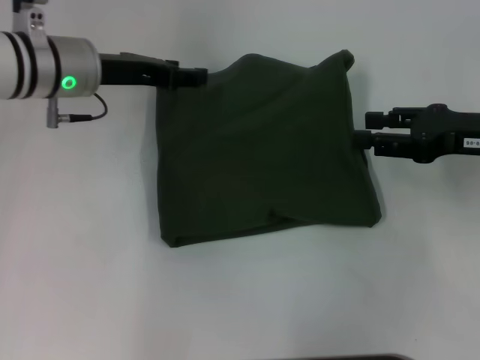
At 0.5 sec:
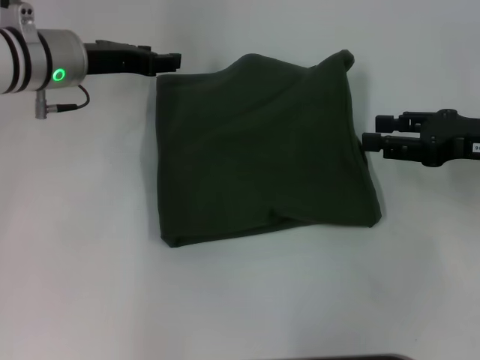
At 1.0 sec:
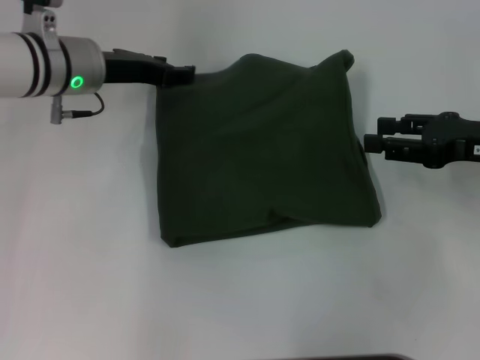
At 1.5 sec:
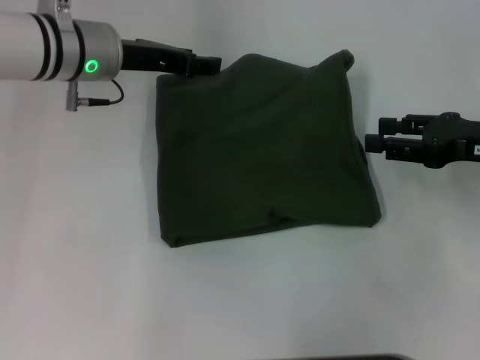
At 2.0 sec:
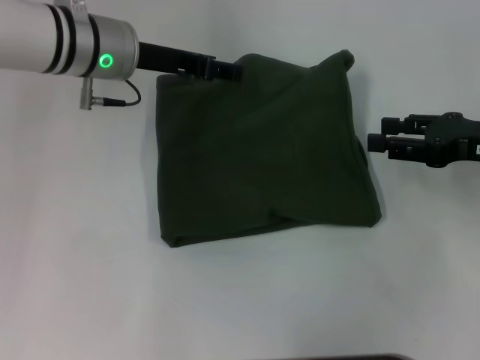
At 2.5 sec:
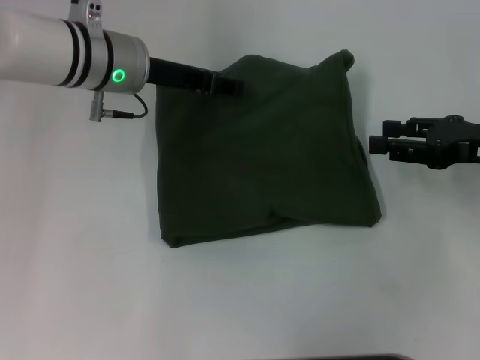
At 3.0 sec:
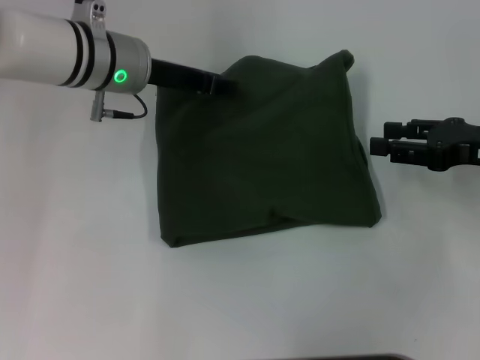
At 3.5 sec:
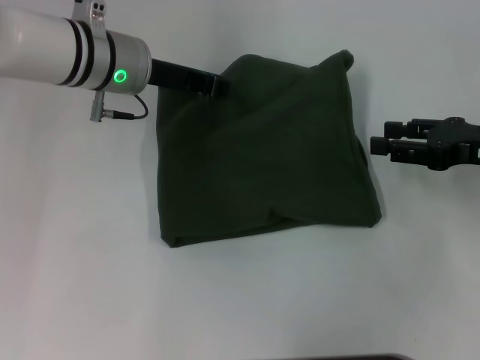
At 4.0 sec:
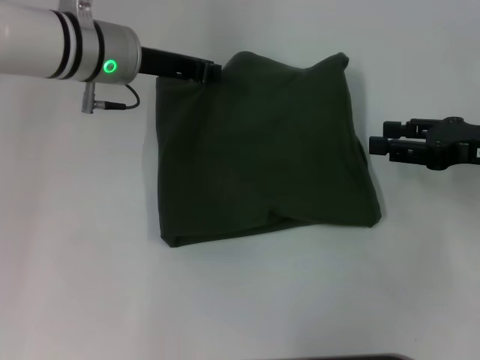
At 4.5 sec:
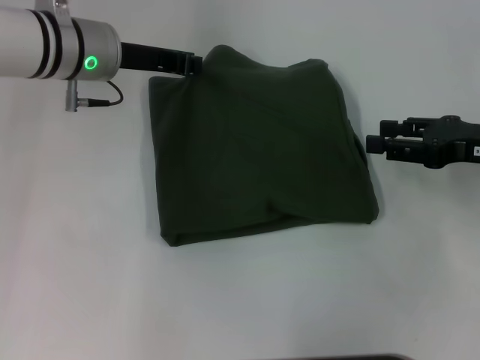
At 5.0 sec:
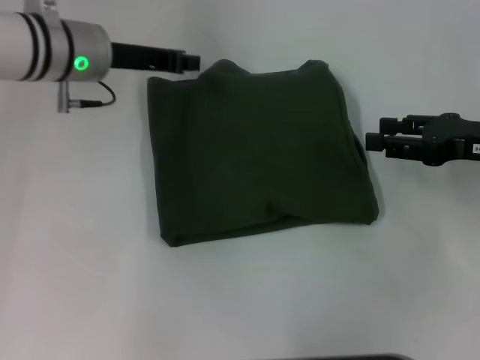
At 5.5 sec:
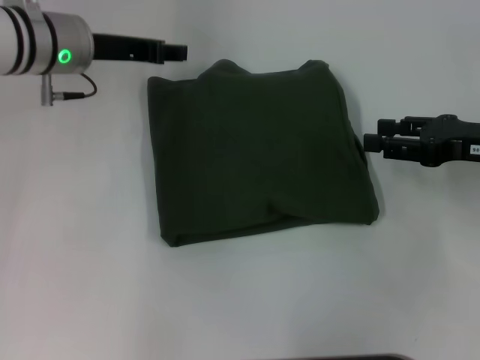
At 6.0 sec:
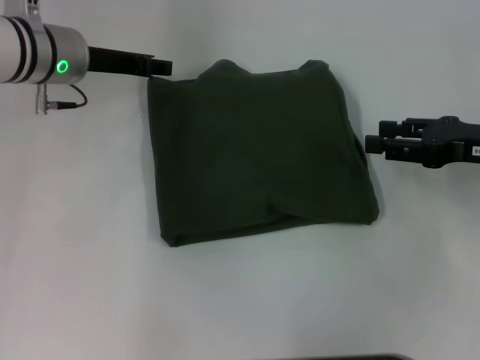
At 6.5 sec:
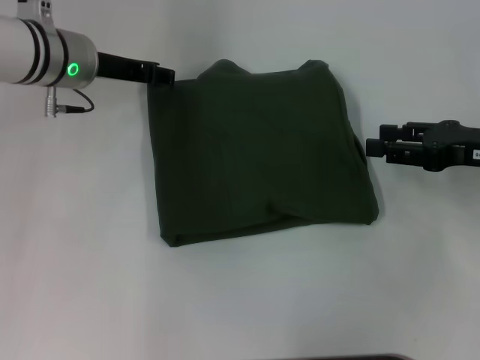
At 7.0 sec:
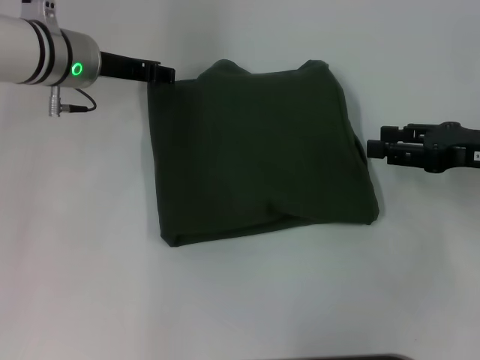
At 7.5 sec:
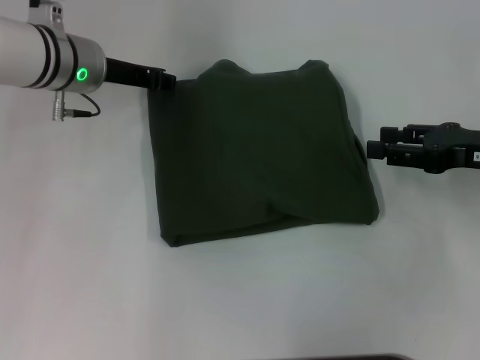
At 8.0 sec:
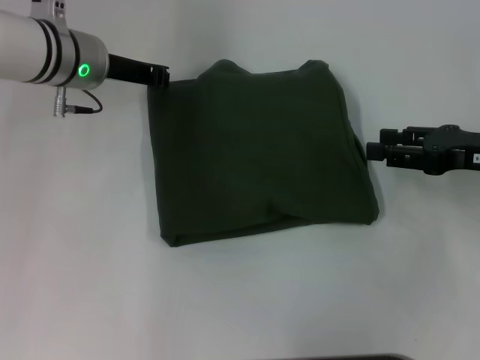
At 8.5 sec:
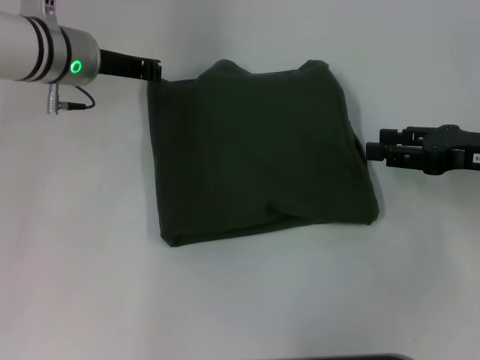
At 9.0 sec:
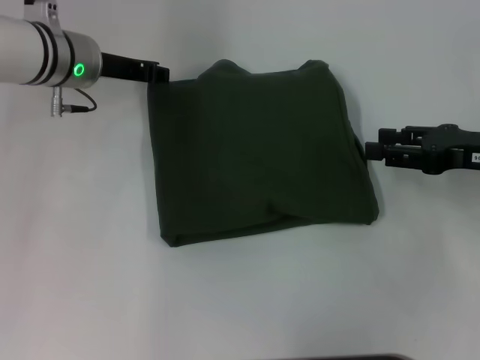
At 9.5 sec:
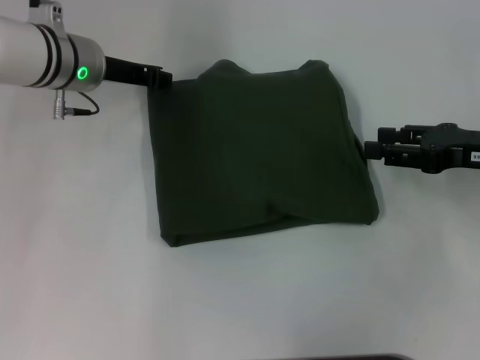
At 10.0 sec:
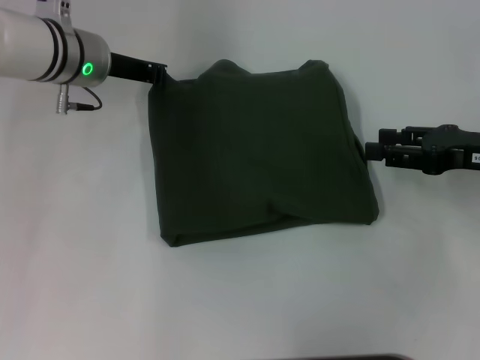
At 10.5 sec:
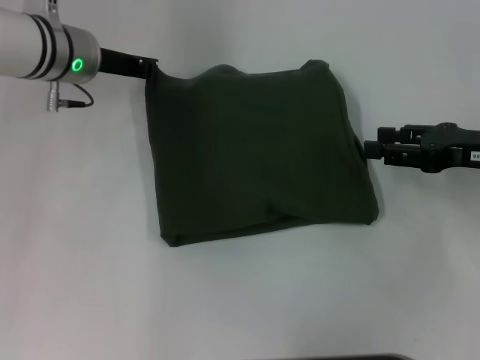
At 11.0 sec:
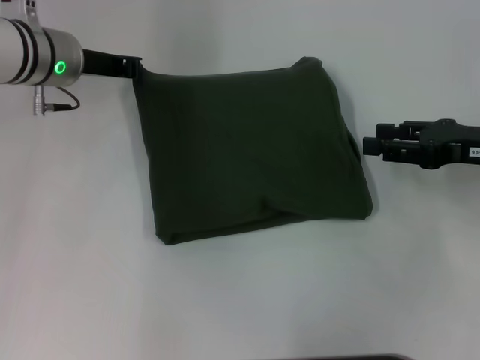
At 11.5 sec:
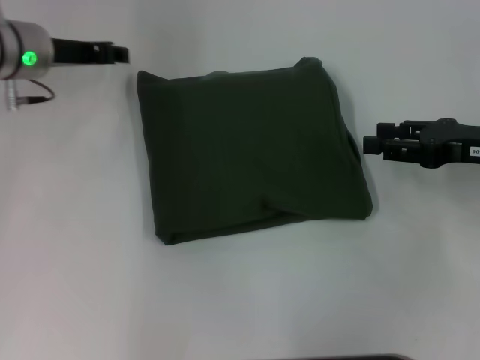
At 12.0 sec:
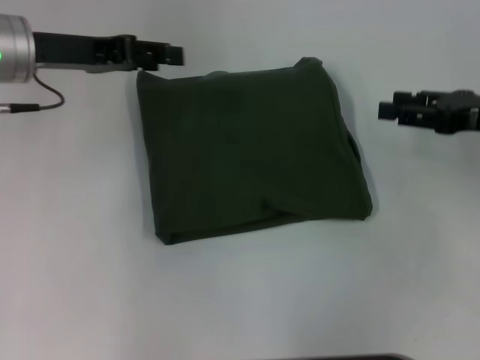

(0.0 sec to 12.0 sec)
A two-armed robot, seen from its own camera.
0.0 sec - 2.0 sec: The grippers make only small movements.
2.0 sec - 4.0 sec: The left gripper closes.
4.0 sec - 6.0 sec: The left gripper opens up.
6.0 sec - 8.0 sec: The left gripper closes up.
8.0 sec - 10.0 sec: Neither gripper changes place.
10.0 sec - 12.0 sec: The left gripper moves to the left and upward, roughly 10 cm, and opens up.

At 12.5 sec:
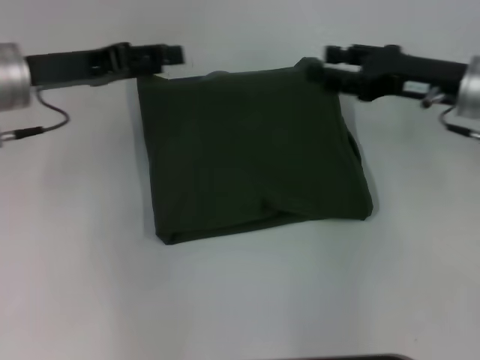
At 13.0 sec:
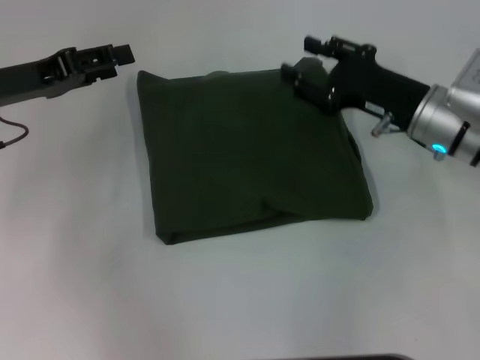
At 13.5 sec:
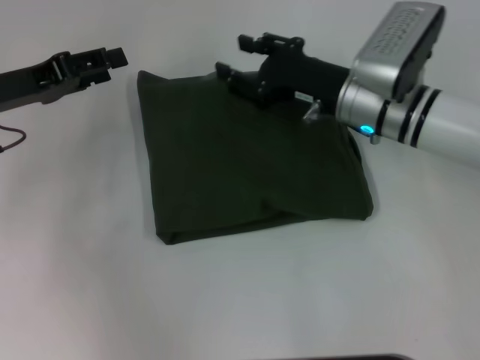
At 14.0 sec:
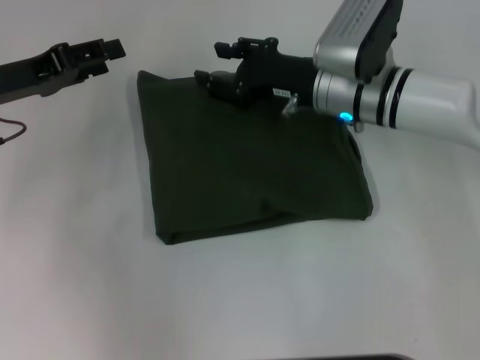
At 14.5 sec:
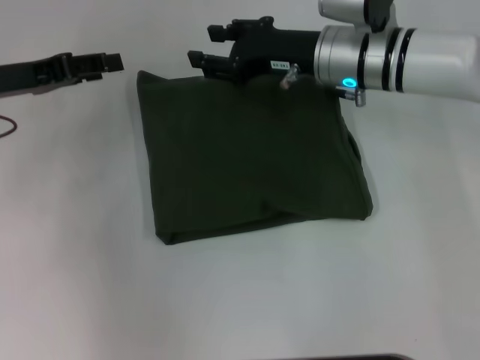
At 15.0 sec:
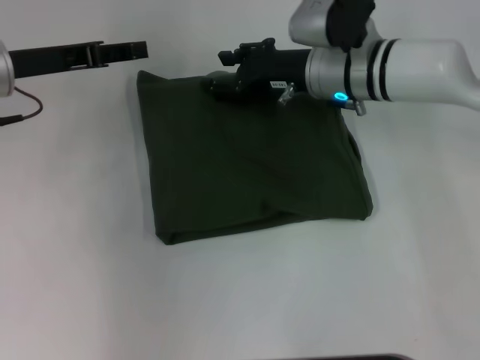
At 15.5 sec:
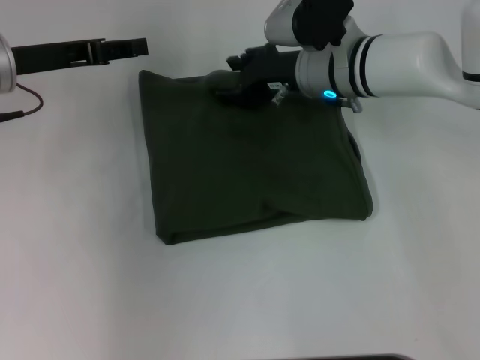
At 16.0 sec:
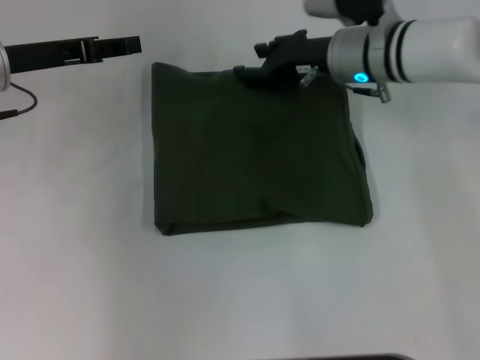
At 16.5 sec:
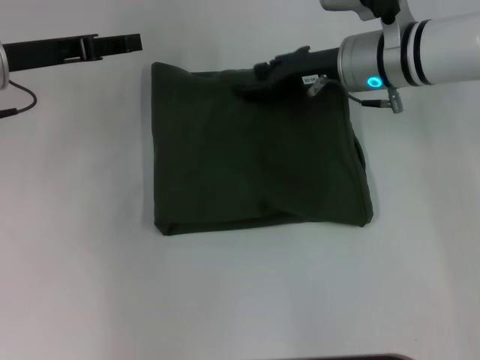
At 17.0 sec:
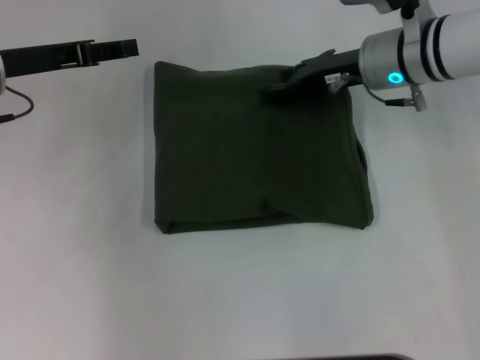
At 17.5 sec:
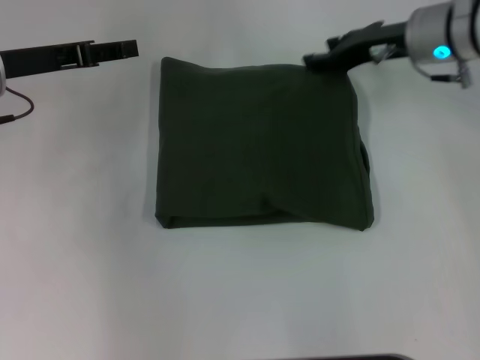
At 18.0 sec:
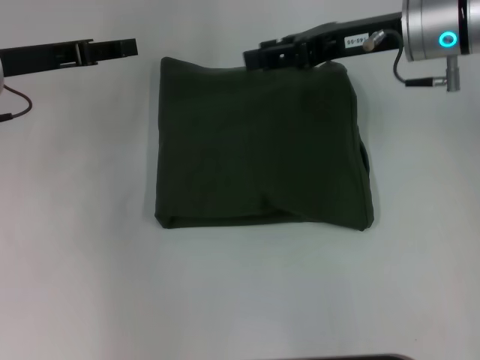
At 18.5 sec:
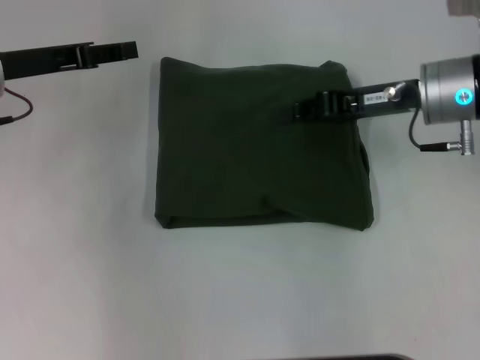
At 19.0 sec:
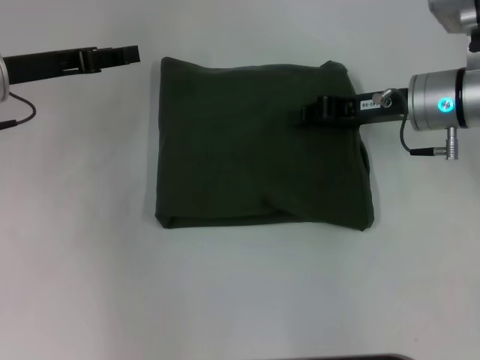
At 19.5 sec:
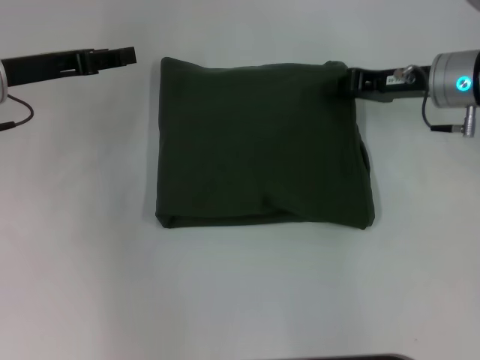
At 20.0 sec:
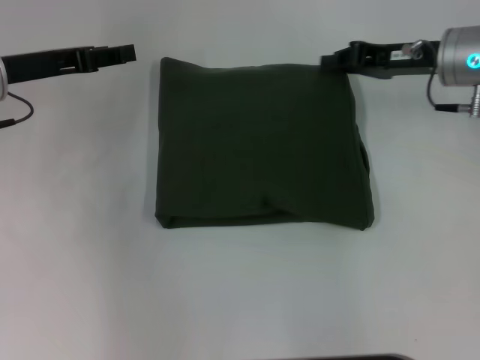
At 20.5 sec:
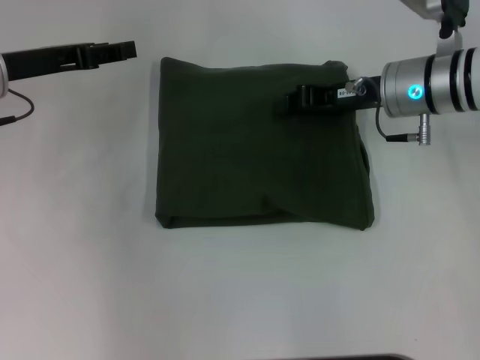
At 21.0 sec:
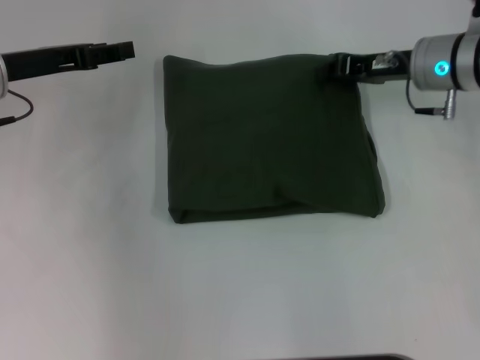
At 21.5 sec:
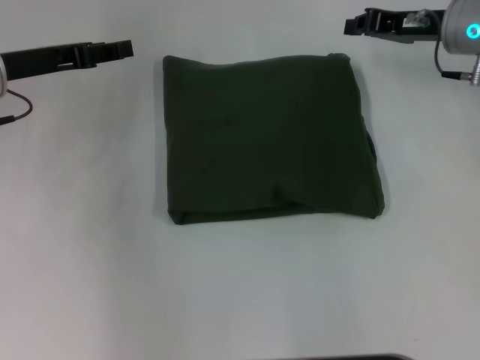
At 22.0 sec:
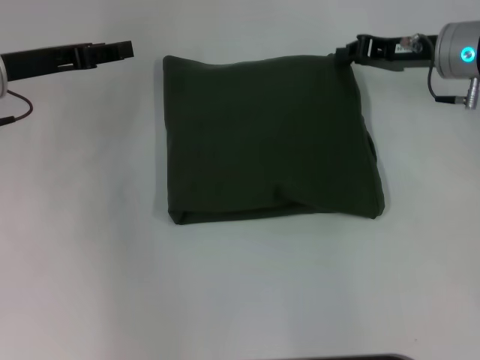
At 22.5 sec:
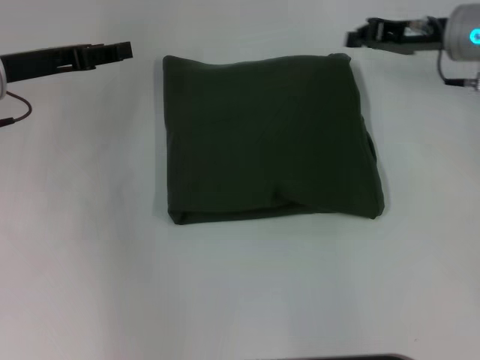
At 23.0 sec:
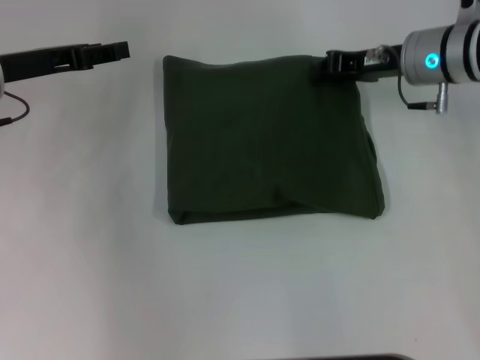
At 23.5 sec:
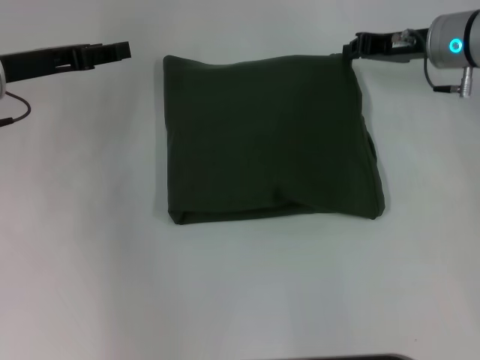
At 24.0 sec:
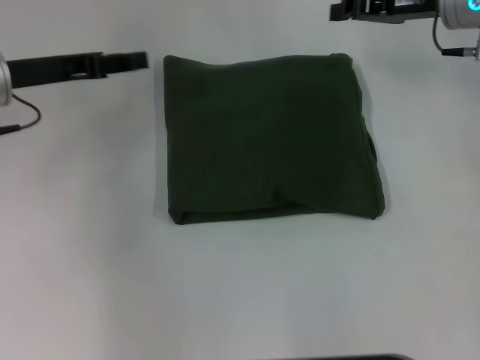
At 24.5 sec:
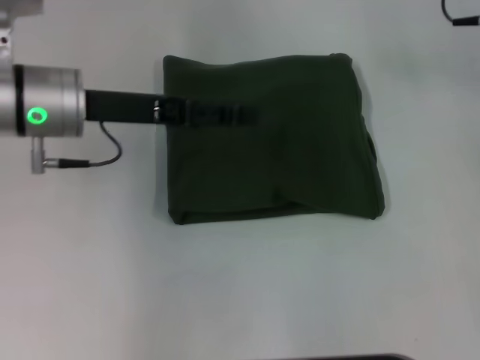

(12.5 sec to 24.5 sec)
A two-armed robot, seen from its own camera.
12.5 sec - 14.5 sec: The right gripper is displaced to the left and forward by about 15 cm.
16.5 sec - 18.5 sec: The right gripper moves to the right, about 5 cm, and closes up.
20.5 sec - 22.5 sec: The right gripper is displaced to the right by approximately 5 cm.
22.5 sec - 24.5 sec: The right gripper goes roughly 10 cm upward. The left gripper heads to the right, covering approximately 10 cm.

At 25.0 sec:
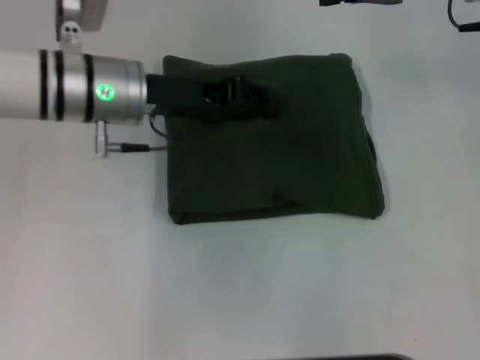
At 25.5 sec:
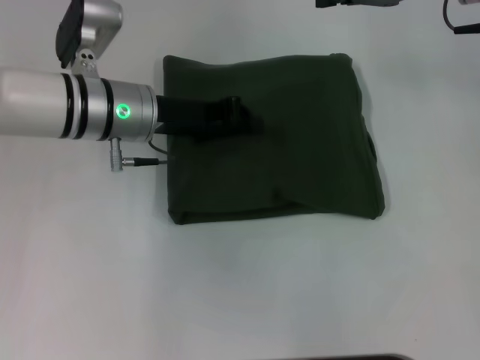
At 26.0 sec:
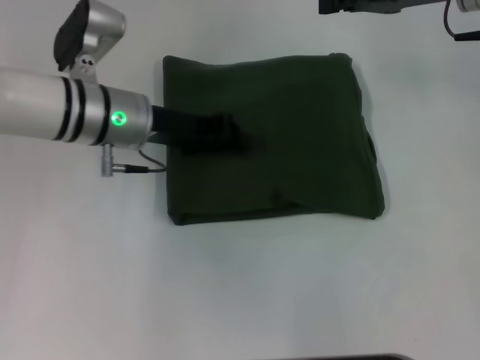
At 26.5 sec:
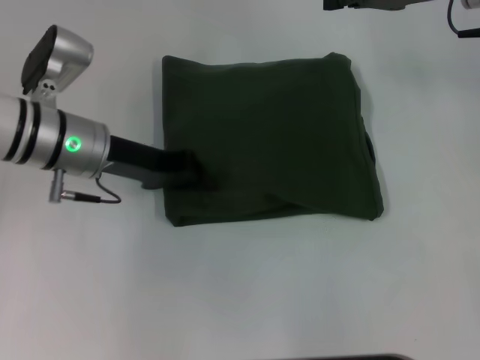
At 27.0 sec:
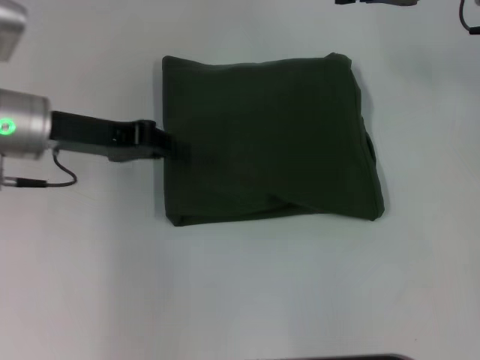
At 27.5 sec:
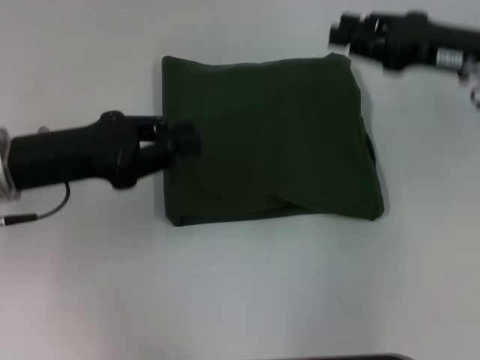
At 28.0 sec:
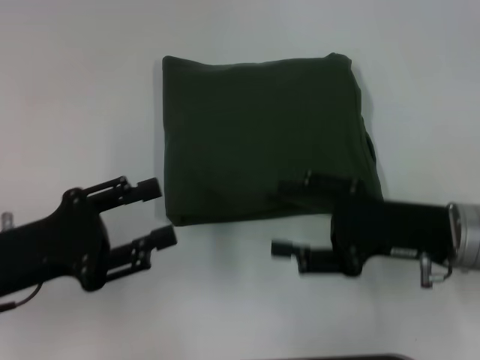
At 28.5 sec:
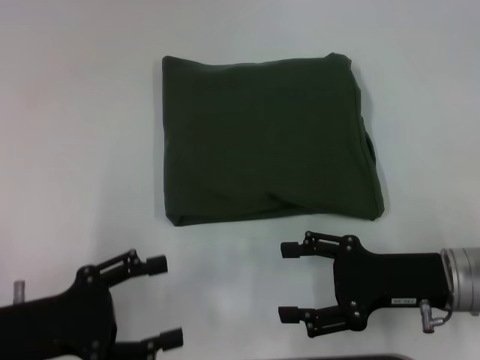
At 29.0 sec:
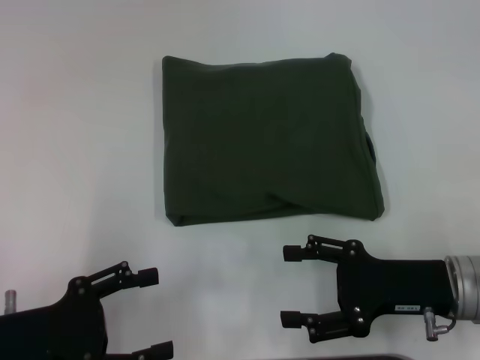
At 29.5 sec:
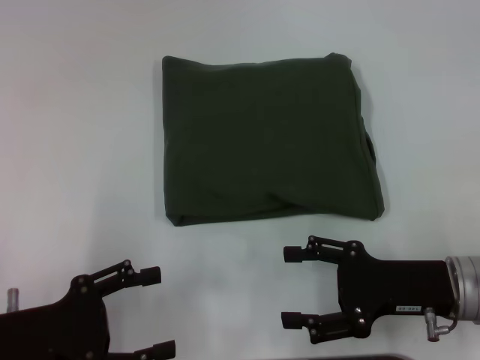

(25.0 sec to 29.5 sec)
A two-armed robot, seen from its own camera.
25.0 sec - 27.0 sec: The left gripper moves to the left, roughly 10 cm, and closes up.
27.0 sec - 29.5 sec: The grippers both shift backward and downward by about 25 cm. The left gripper opens; the right gripper opens.
